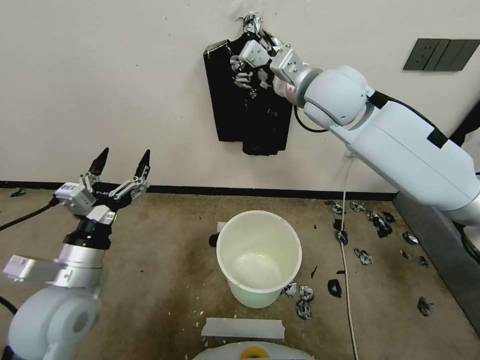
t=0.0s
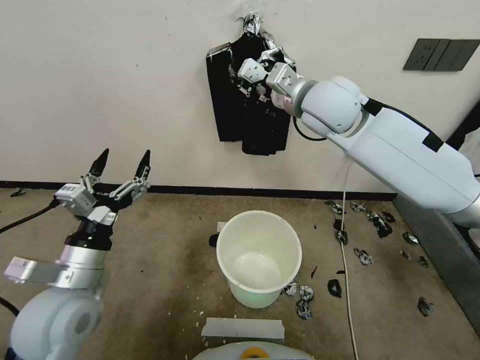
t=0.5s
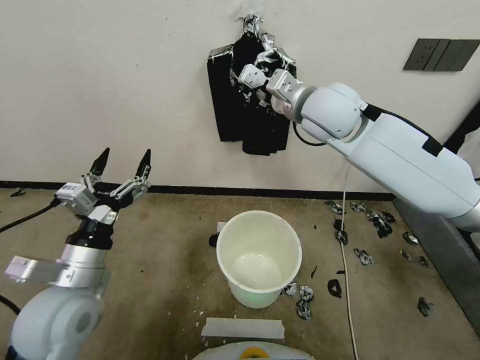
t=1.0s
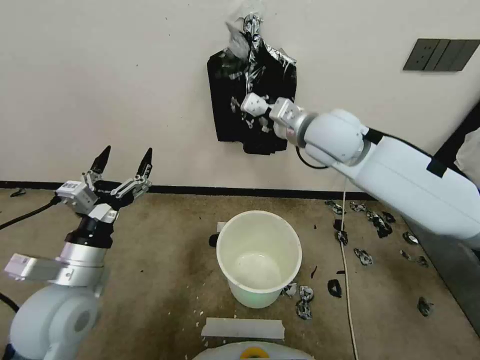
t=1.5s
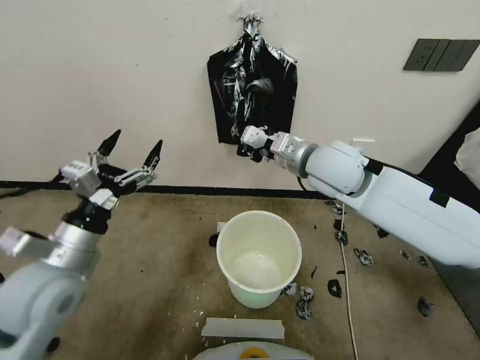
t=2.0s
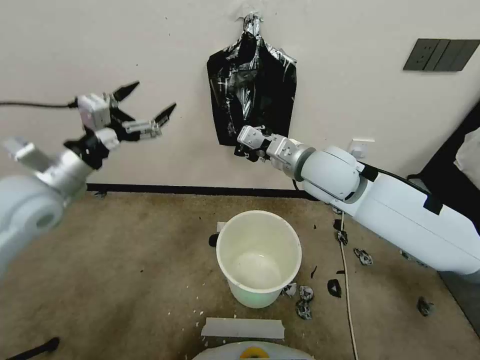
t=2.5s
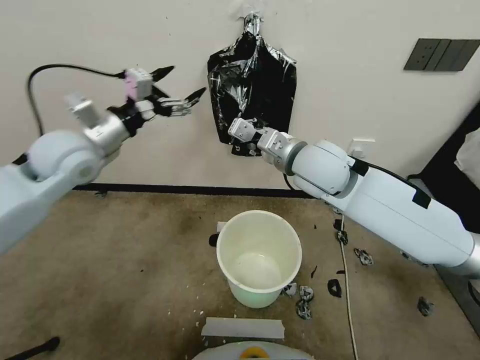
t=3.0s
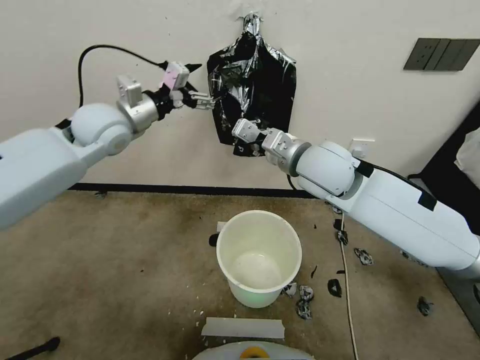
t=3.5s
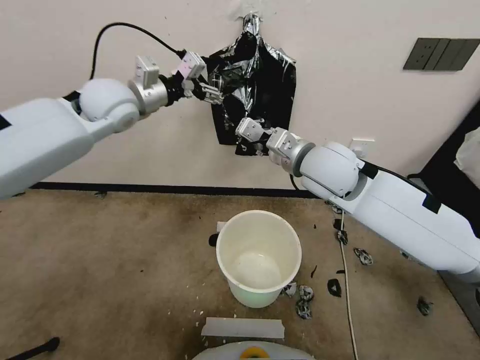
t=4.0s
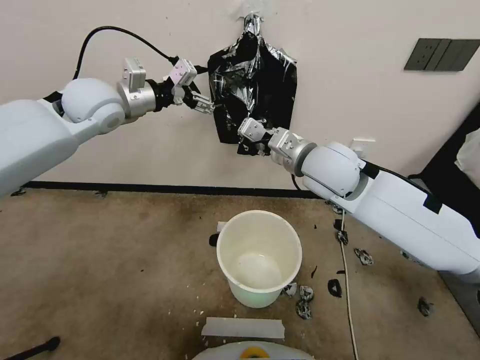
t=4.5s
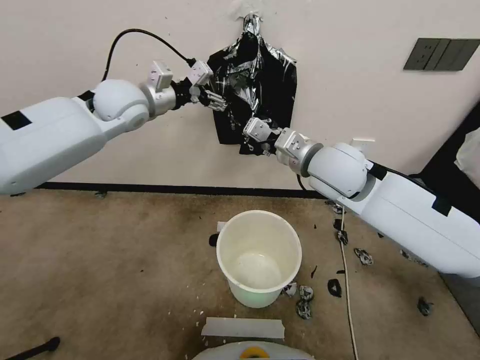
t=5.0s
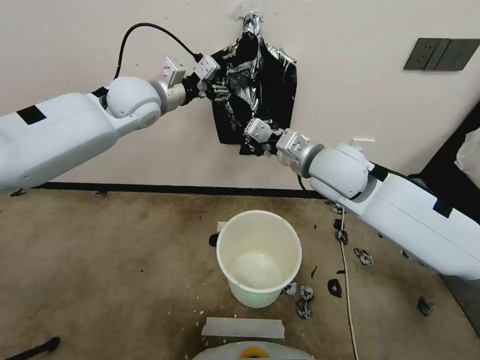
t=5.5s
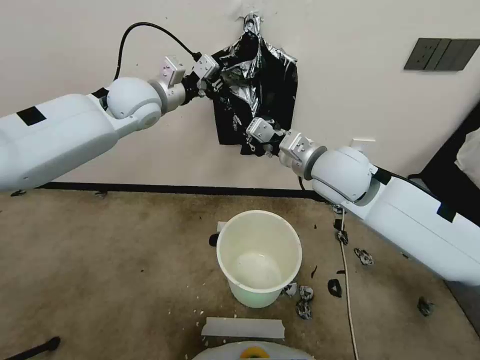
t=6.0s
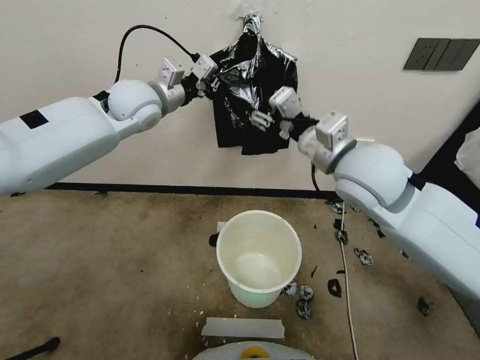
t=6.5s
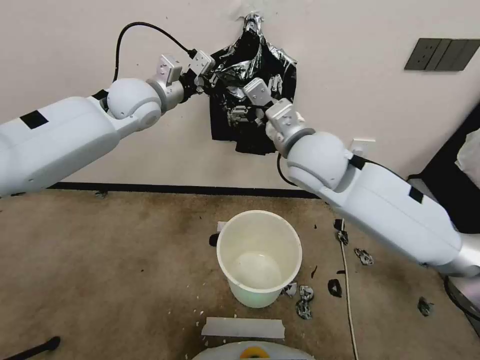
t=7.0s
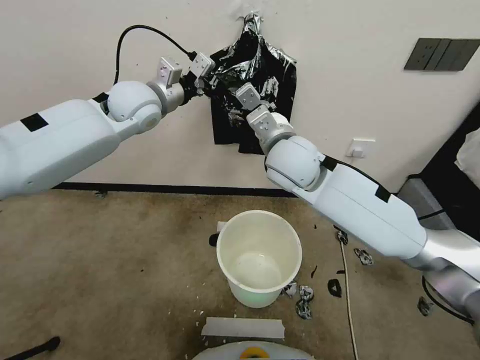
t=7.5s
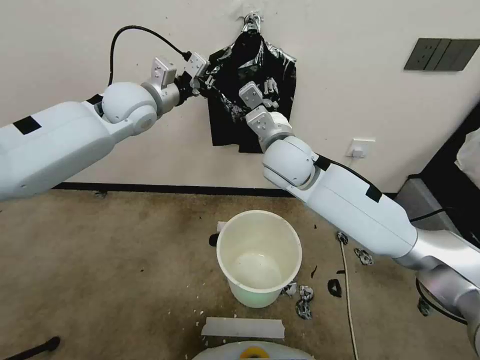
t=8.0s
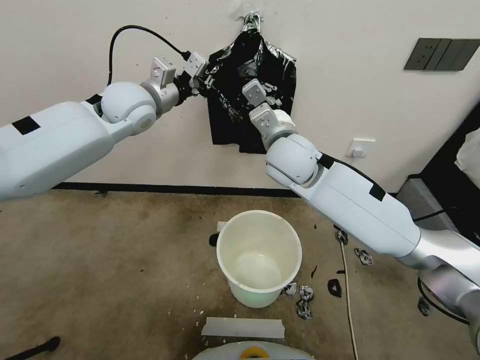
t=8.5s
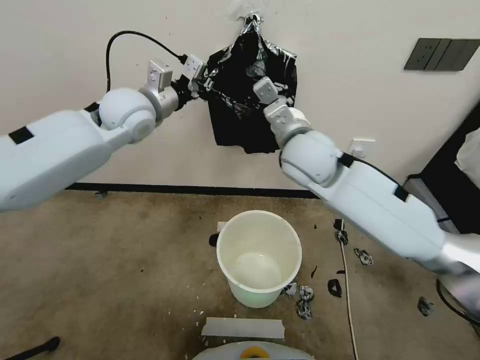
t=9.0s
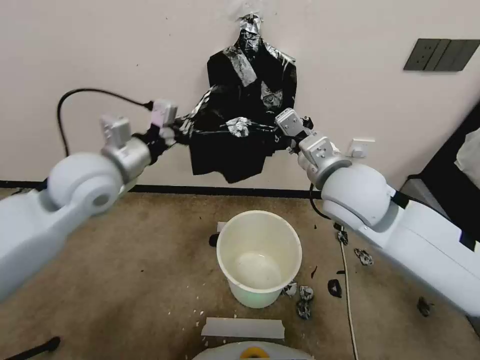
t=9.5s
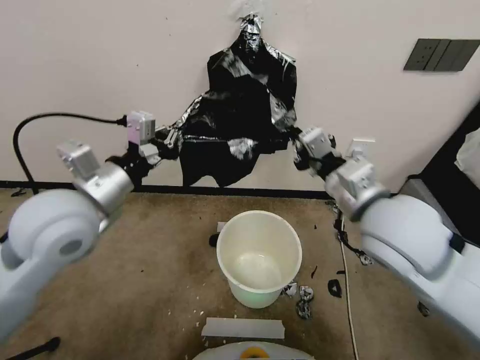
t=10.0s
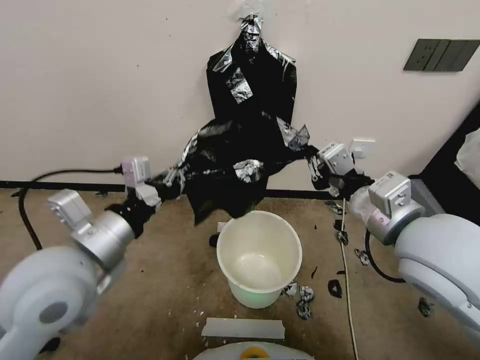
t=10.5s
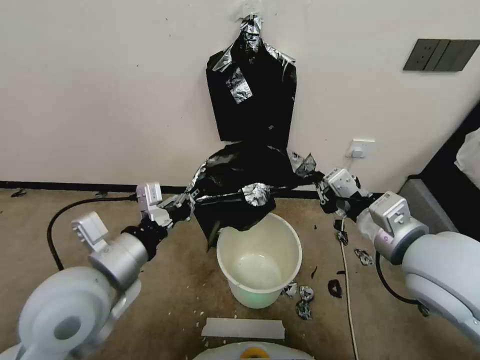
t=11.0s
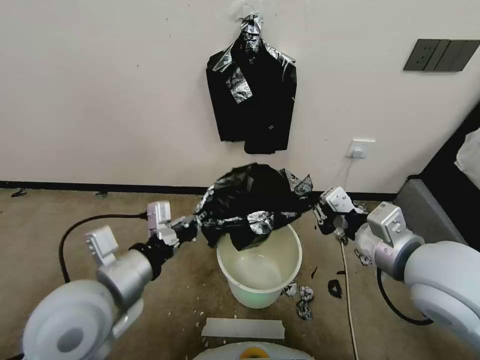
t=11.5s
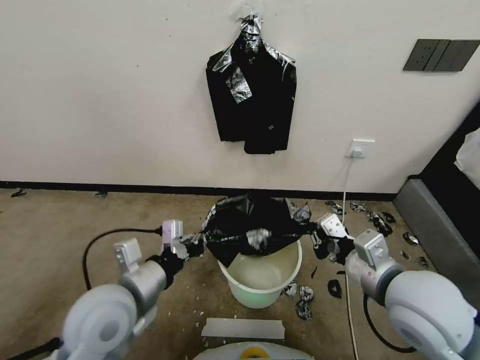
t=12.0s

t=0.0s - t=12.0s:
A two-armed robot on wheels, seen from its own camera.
Task of the whole recording: Place a trash bag onto the trash bin.
t=0.0s - t=2.0s: The right gripper heads downward and backward, covering about 15 cm, and closes its fingers.
t=2.0s - t=4.0s: The left gripper is displaced forward and upward by approximately 30 cm.
t=4.0s - t=6.0s: The left gripper closes its fingers.
t=6.0s - t=8.0s: The right gripper is displaced to the left by approximately 10 cm, and opens its fingers.
t=8.0s - t=10.0s: The right gripper shifts roughly 20 cm backward and to the right, and closes; the left gripper moves backward, approximately 25 cm.
t=10.0s - t=12.0s: Both grippers travel together downward and backward, some 15 cm.

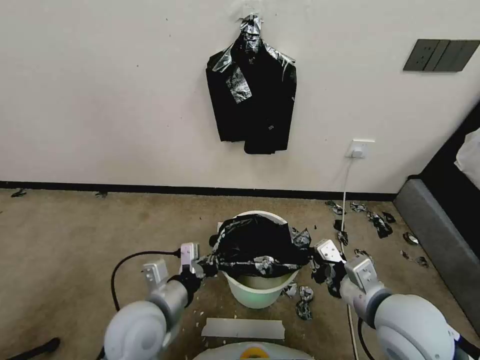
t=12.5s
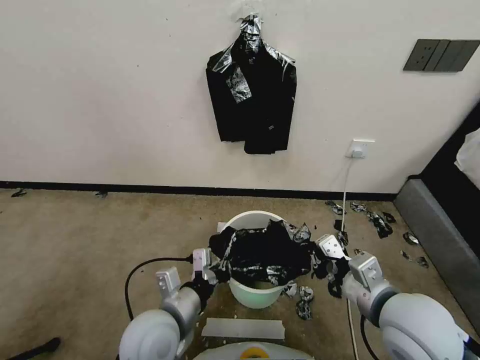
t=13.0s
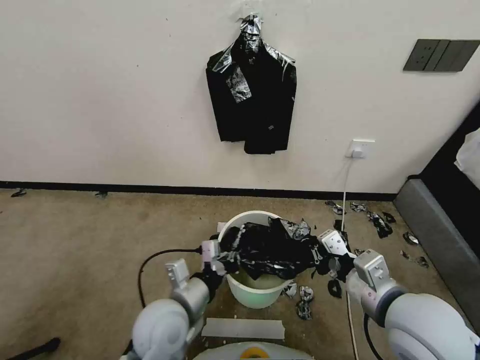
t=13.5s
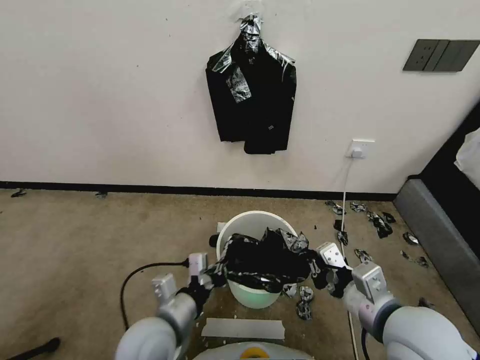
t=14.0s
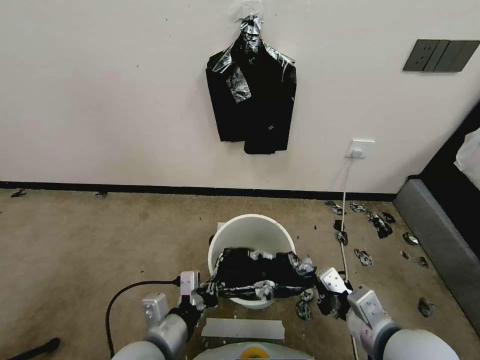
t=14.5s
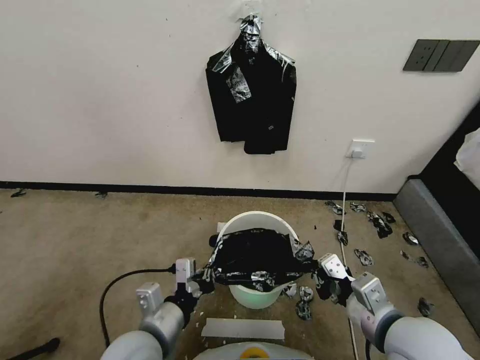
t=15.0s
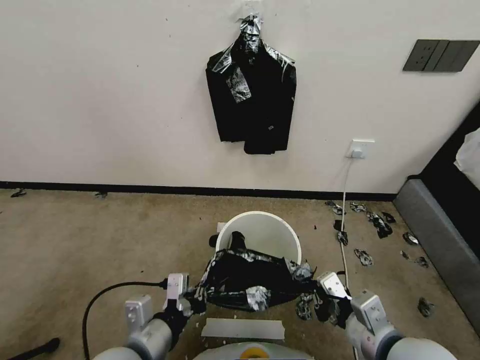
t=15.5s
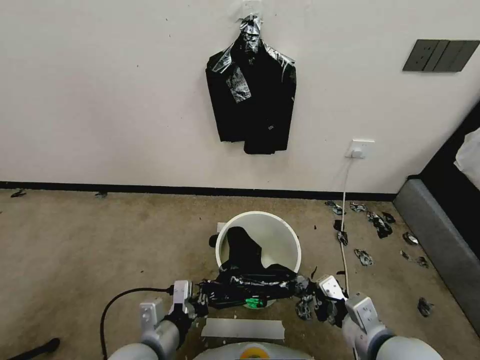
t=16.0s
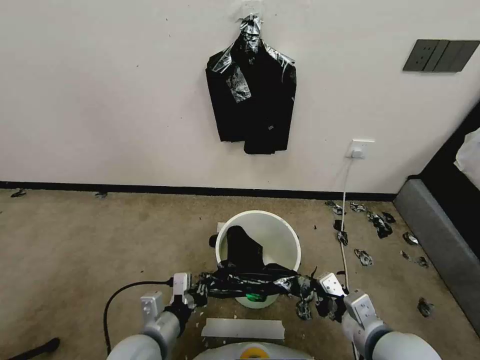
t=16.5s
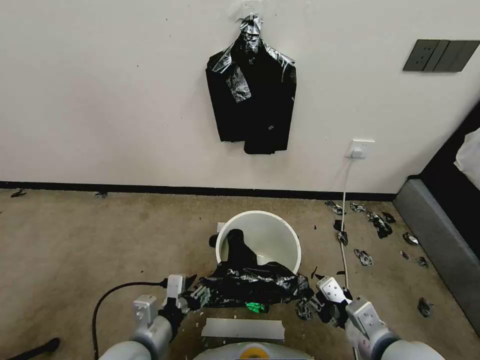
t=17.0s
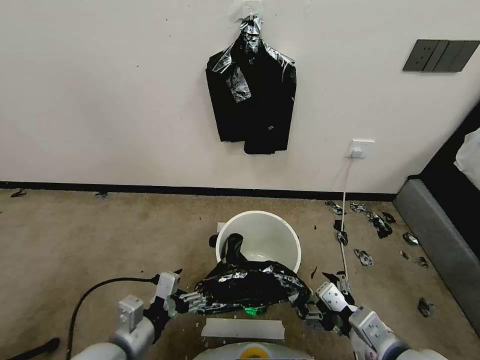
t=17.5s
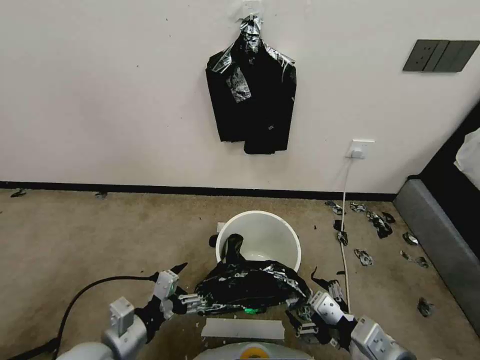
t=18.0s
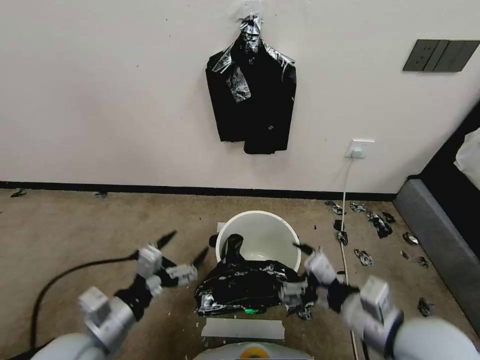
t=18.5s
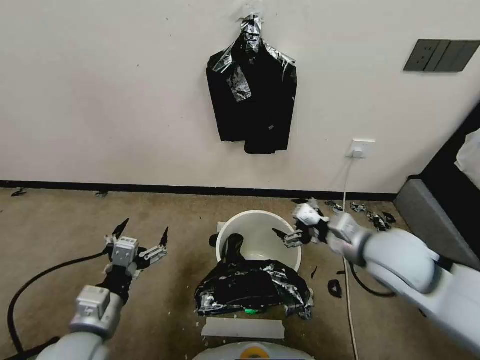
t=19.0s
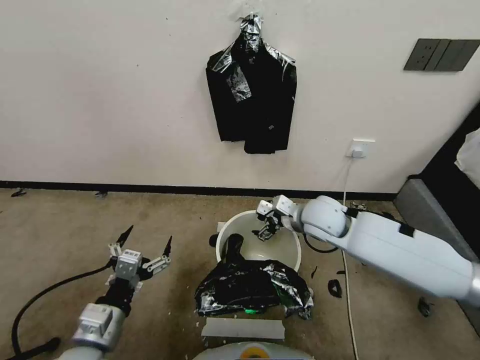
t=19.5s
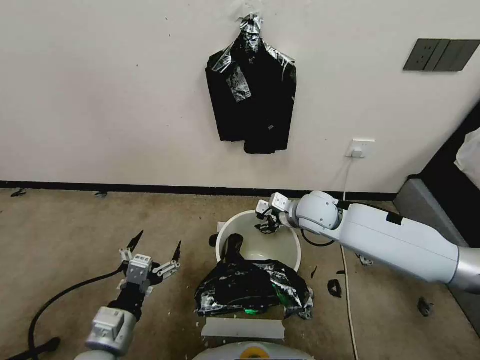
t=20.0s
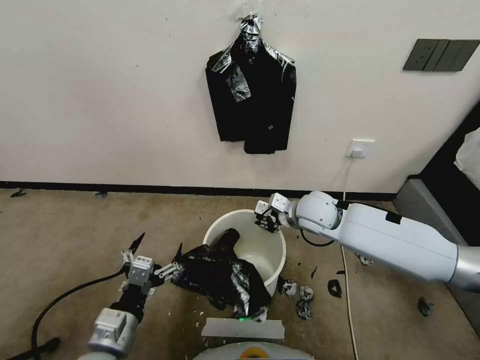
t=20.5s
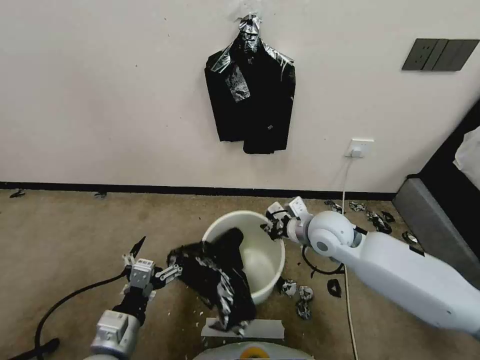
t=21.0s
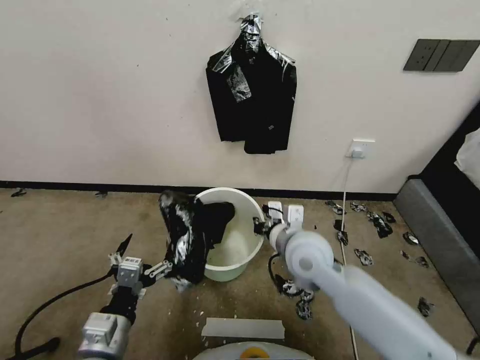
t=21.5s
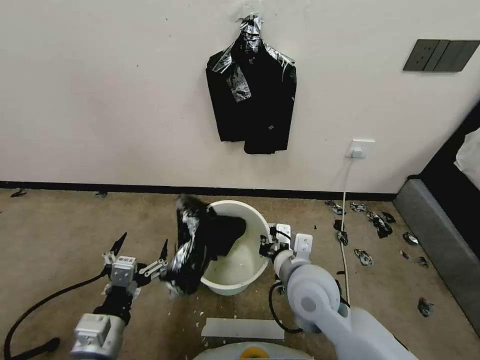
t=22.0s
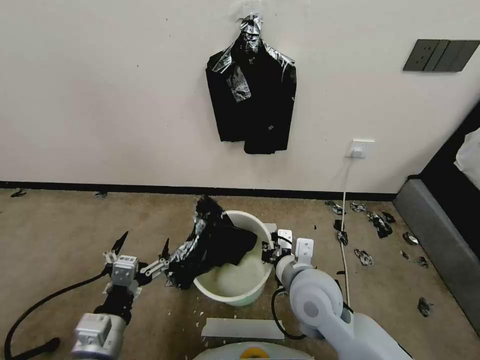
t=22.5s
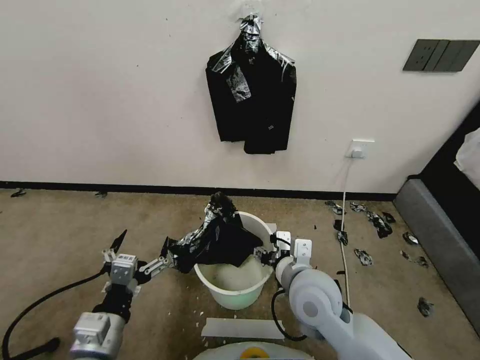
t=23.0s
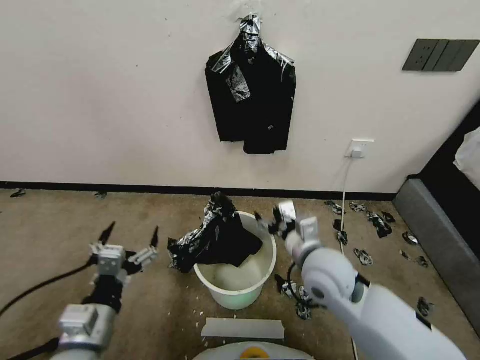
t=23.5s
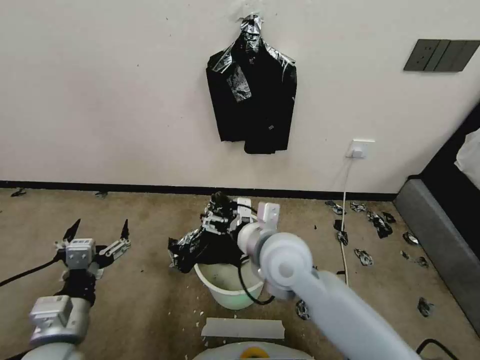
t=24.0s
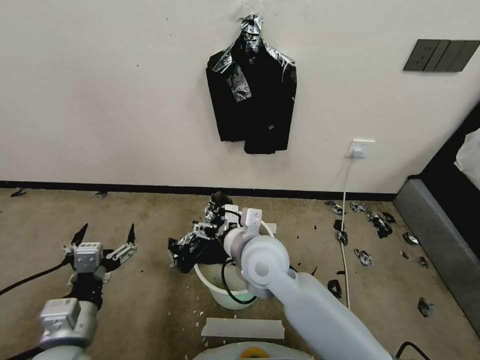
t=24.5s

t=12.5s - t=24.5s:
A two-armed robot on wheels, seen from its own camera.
Task of the whole recording: Place a trash bag onto the trash bin.
t=12.5s - t=14.5s: The left gripper heads backward, covering approximately 5 cm.
t=14.5s - t=16.5s: There are only small adjustments of the grippers.
t=16.5s - t=18.5s: The right gripper is displaced upward by some 10 cm, and opens, while the left gripper travels upward and to the left by approximately 10 cm, and opens.
t=18.5s - t=20.5s: The left gripper shifts approximately 5 cm downward. The right gripper shifts some 25 cm forward, and closes.
t=20.5s - t=22.5s: The right gripper goes approximately 20 cm backward.
t=22.5s - t=24.5s: The right gripper goes about 10 cm to the left and forward, and opens.

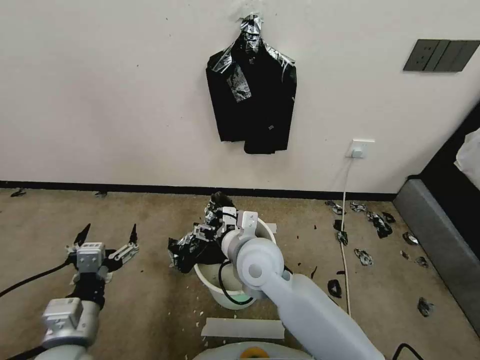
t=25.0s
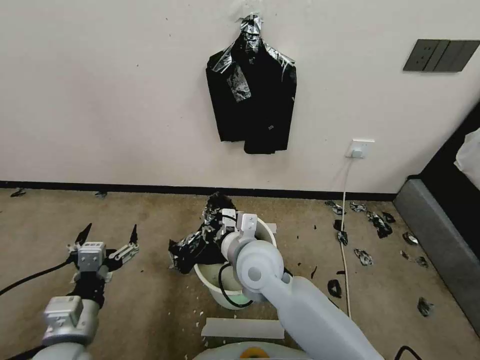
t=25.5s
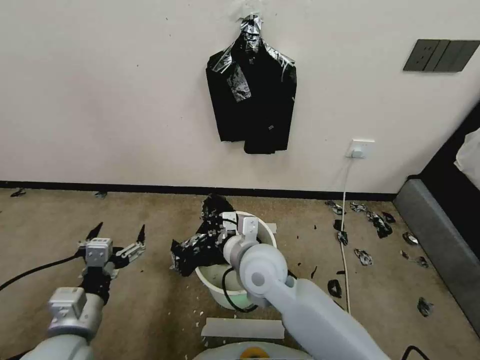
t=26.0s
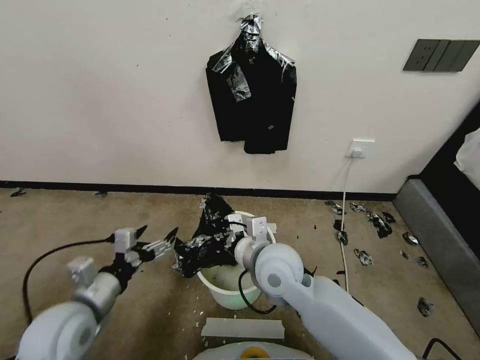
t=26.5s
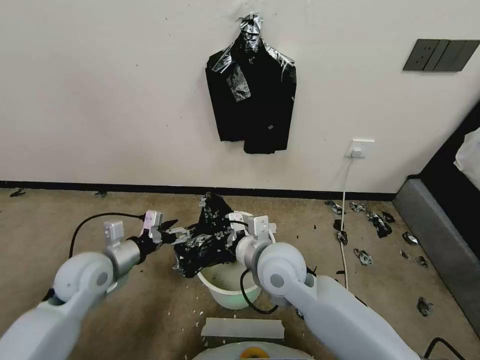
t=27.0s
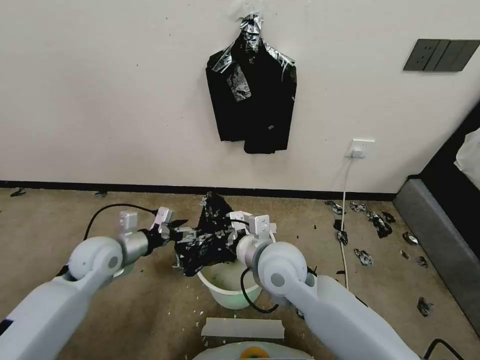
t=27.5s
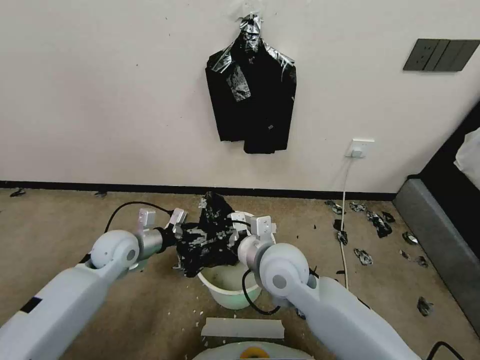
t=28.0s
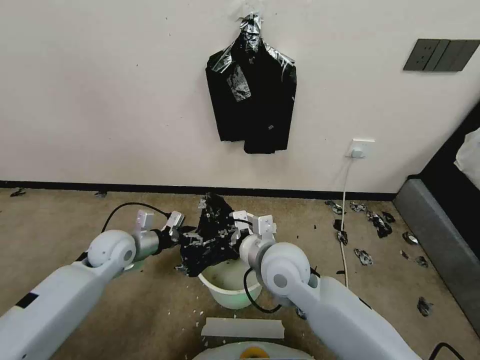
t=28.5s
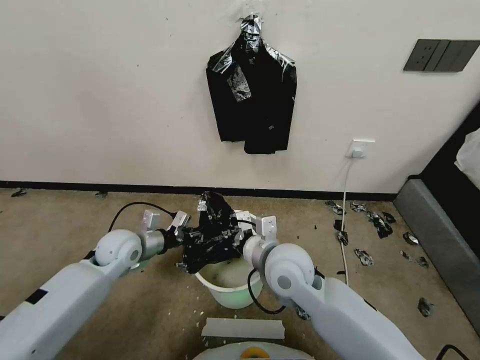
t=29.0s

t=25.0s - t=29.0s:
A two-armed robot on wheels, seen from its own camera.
Task of the whole recording: Place a trash bag onto the trash bin.
t=25.0s - t=27.0s: The left gripper heads forward, covering roughly 15 cm. The right gripper closes.
t=27.0s - t=29.0s: The left gripper is displaced forward by approximately 10 cm, and closes its fingers.
